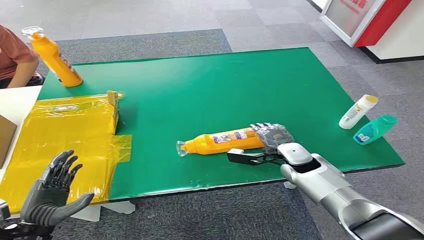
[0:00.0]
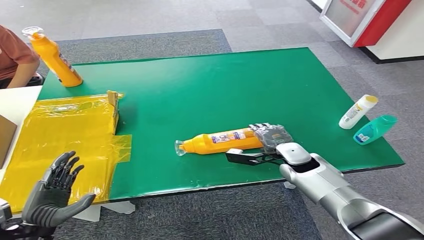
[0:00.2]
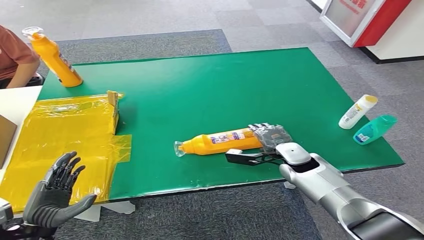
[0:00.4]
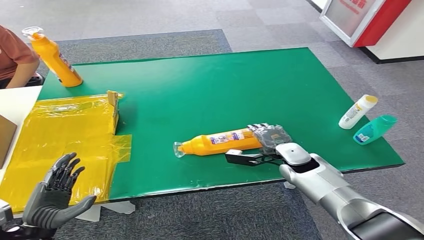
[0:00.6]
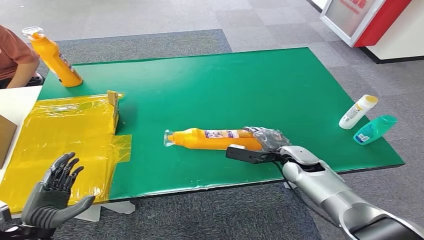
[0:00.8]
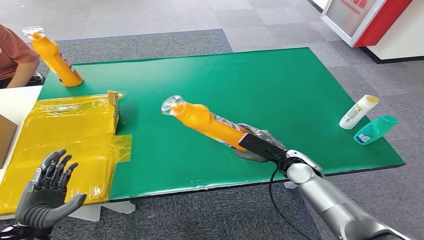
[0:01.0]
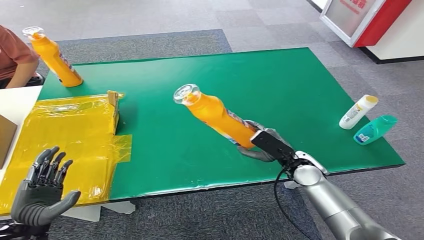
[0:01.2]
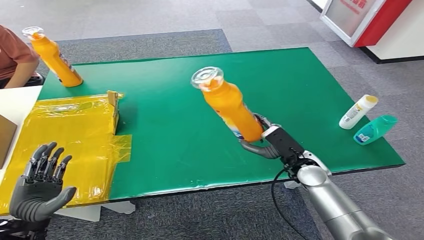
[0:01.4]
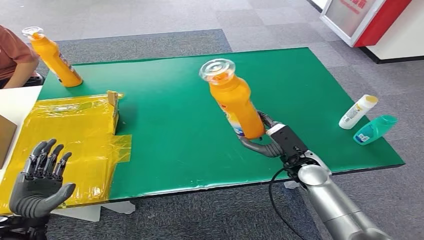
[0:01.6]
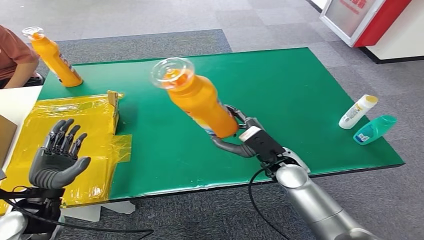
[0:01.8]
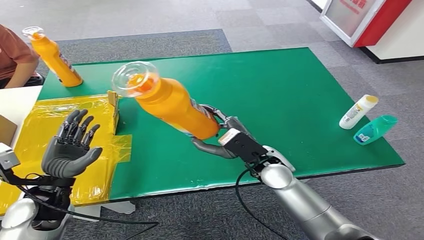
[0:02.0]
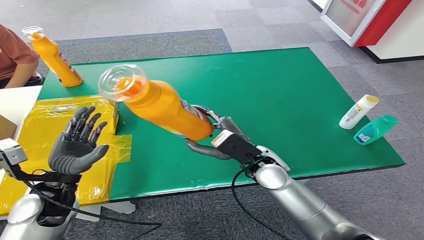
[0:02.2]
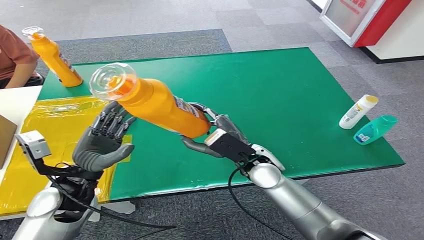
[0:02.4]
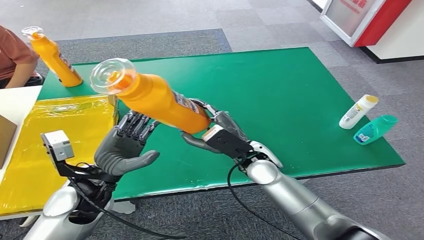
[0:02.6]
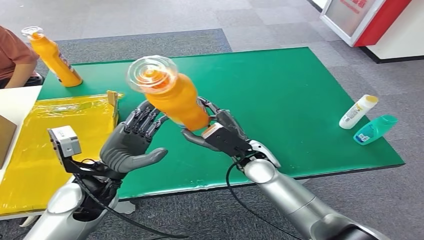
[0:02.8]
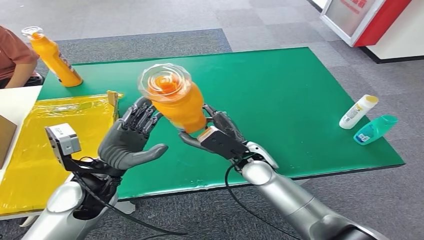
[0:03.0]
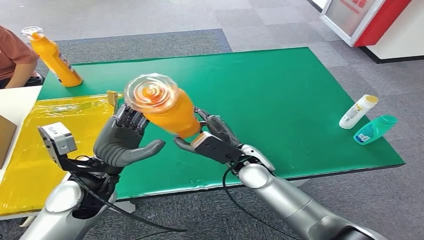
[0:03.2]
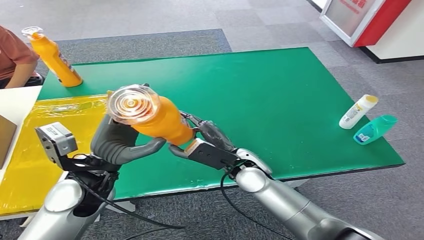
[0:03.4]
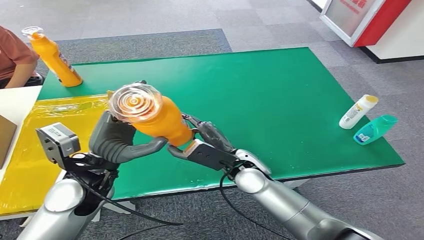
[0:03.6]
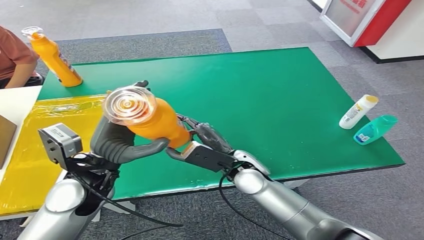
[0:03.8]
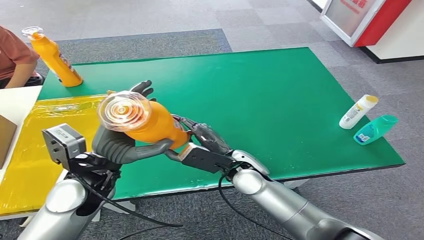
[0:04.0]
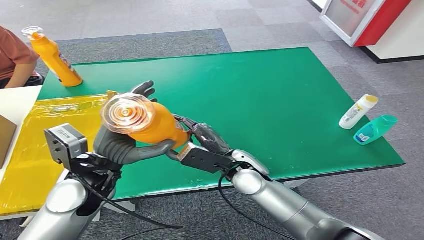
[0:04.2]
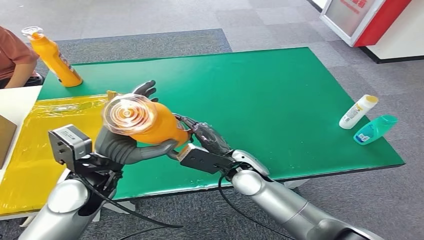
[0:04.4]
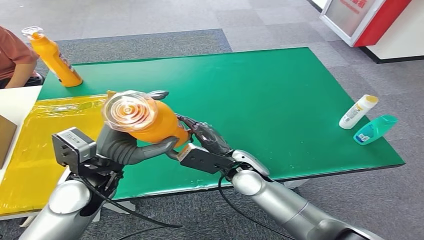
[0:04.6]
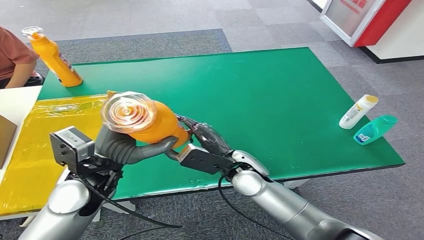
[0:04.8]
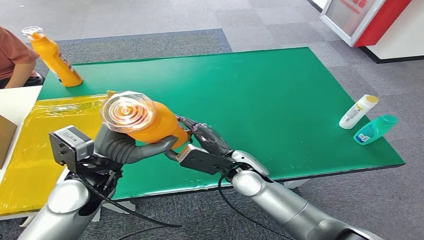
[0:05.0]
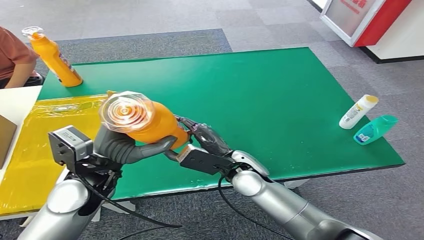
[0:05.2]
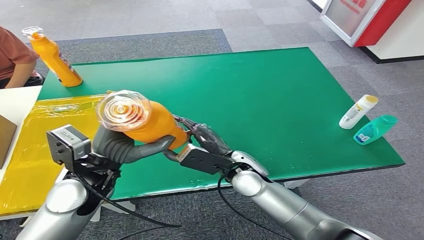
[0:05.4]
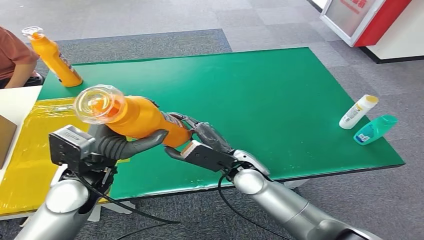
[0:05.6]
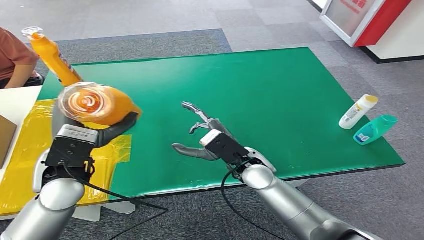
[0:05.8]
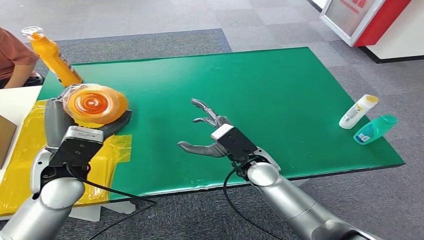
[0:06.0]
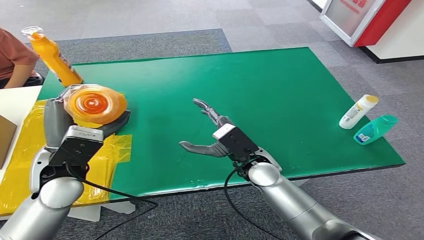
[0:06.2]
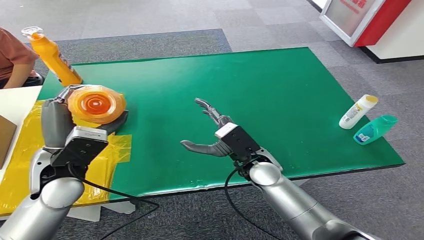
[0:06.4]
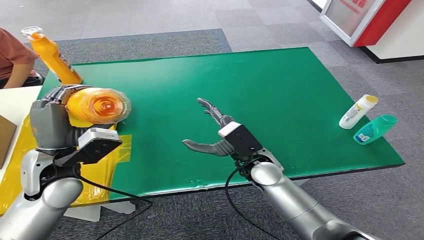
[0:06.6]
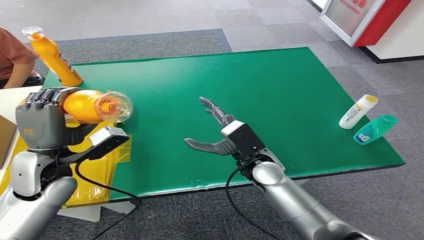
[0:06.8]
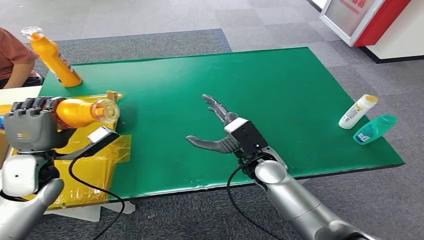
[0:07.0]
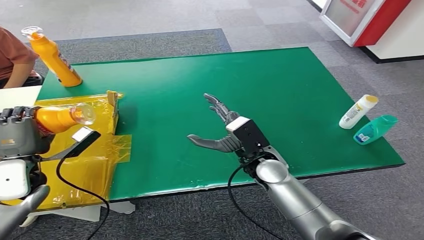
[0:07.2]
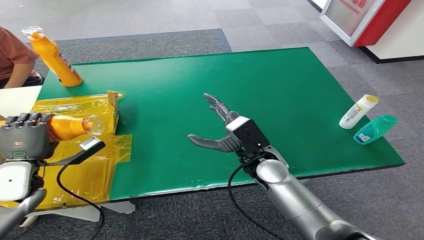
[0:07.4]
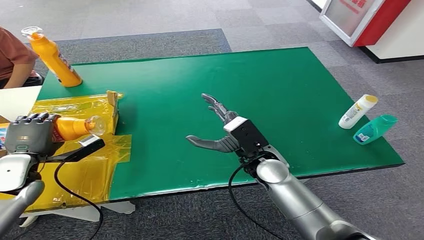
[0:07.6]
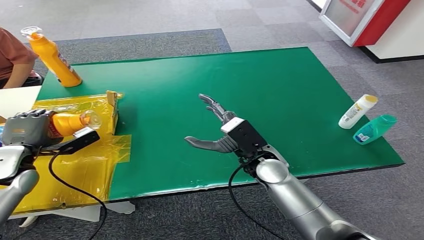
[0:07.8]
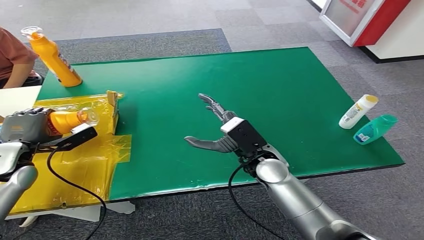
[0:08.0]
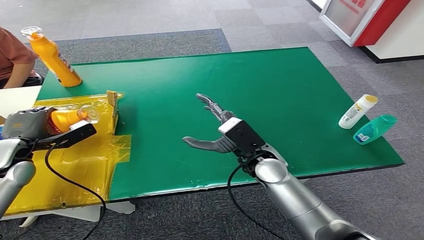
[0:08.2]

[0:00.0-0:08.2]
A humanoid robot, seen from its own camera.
Step, 0:00.0 to 0:01.2: Pick up the bottle from the table.
Step, 0:01.4 to 0:08.2: Turn the bottle to the front side.
0:03.2 to 0:05.0: The hands stay close to where they were, moving slightly.
0:06.6 to 0:08.2: The left hand goes roughly 15 cm to the left, forward and downward.
